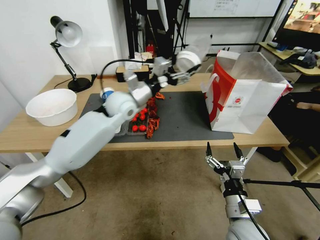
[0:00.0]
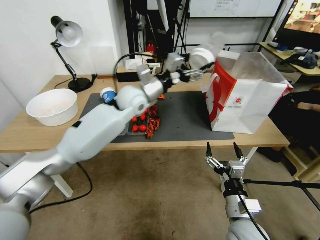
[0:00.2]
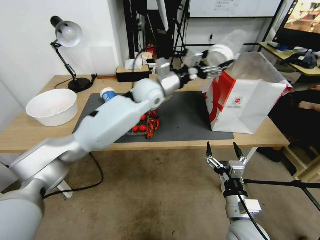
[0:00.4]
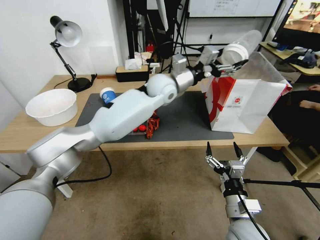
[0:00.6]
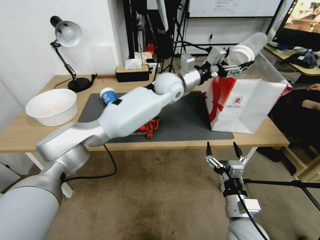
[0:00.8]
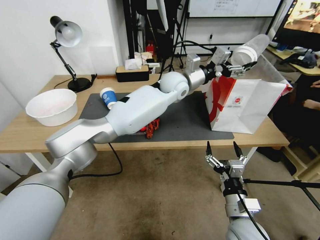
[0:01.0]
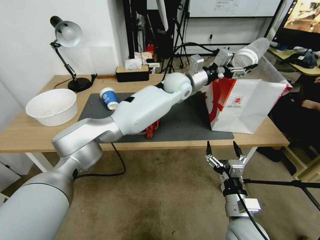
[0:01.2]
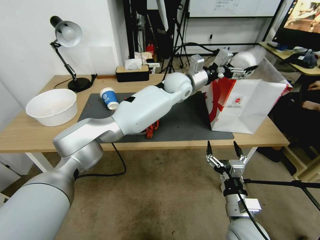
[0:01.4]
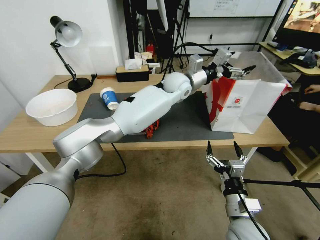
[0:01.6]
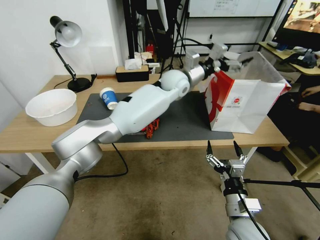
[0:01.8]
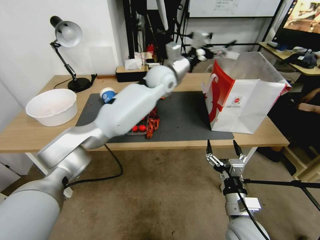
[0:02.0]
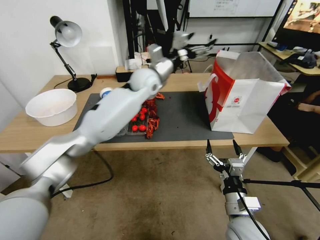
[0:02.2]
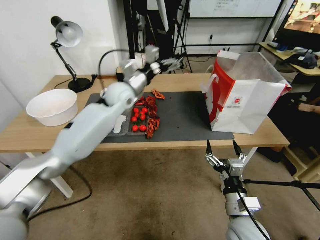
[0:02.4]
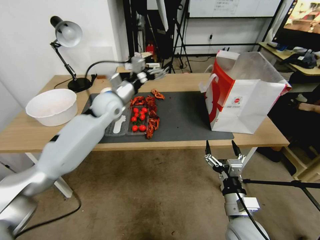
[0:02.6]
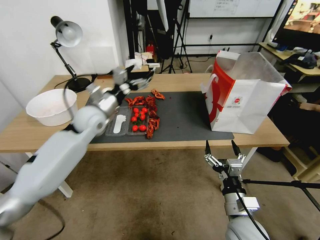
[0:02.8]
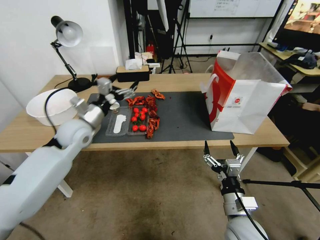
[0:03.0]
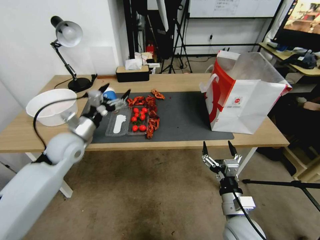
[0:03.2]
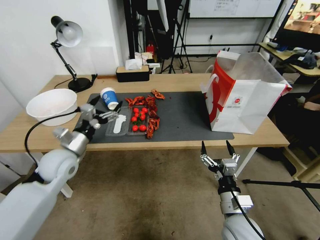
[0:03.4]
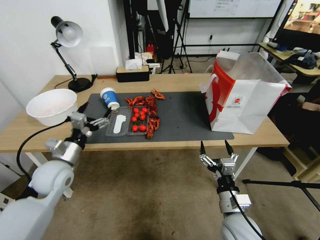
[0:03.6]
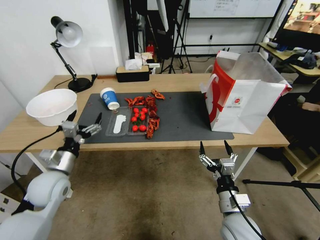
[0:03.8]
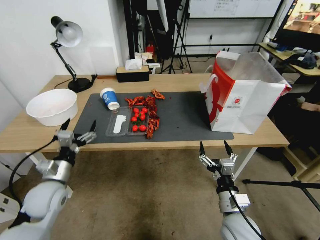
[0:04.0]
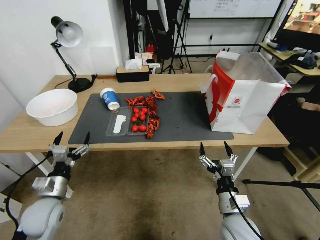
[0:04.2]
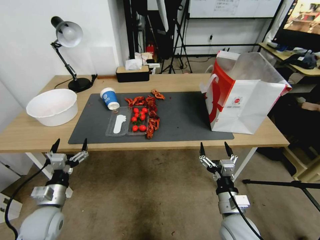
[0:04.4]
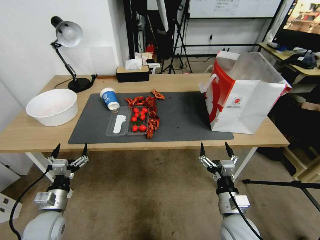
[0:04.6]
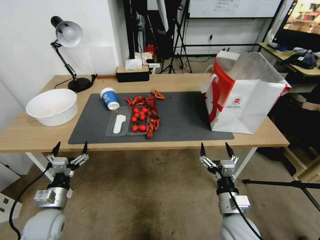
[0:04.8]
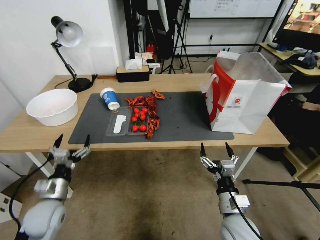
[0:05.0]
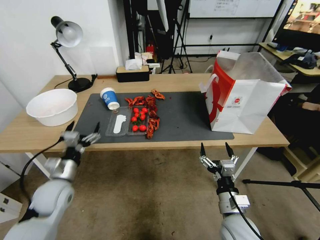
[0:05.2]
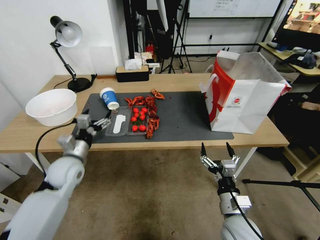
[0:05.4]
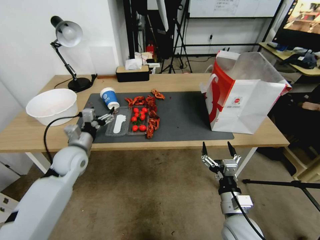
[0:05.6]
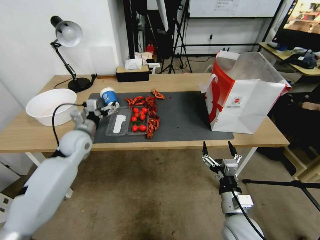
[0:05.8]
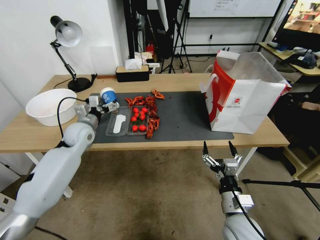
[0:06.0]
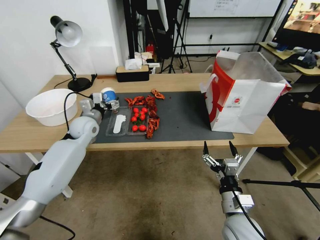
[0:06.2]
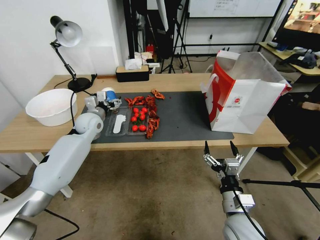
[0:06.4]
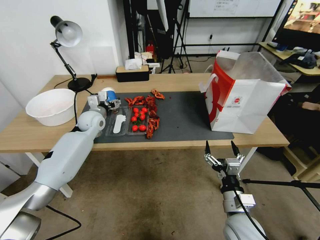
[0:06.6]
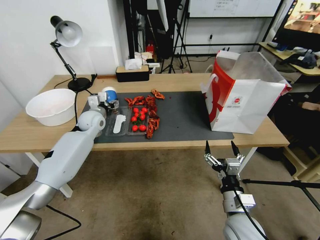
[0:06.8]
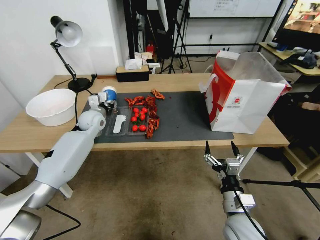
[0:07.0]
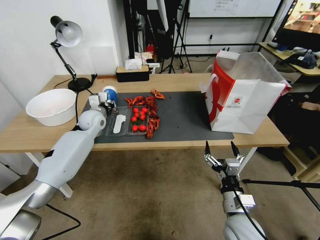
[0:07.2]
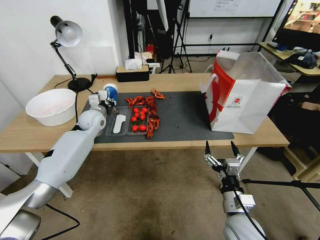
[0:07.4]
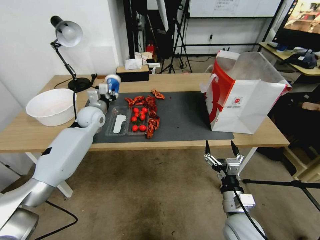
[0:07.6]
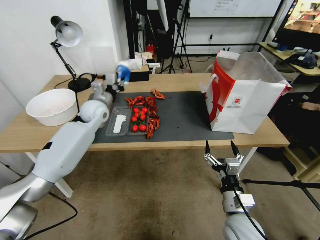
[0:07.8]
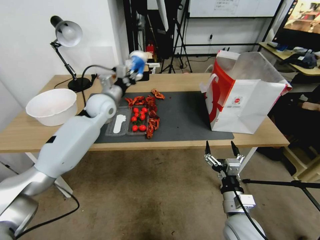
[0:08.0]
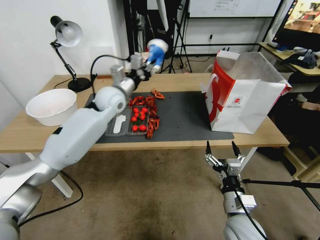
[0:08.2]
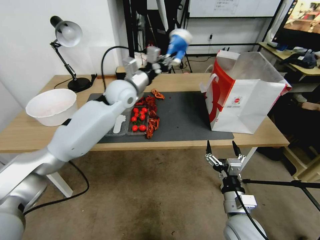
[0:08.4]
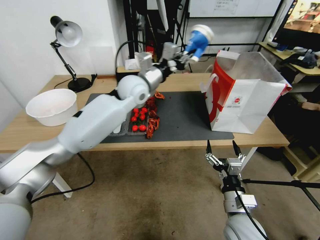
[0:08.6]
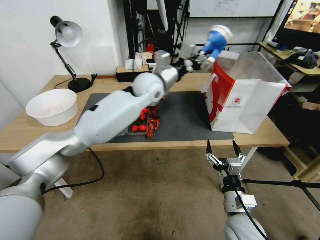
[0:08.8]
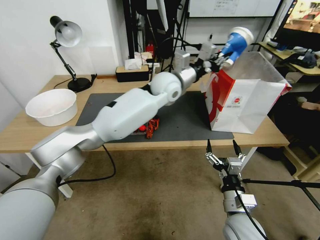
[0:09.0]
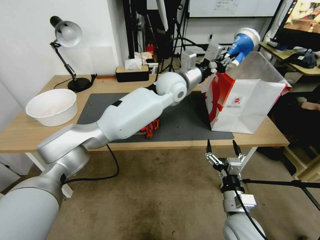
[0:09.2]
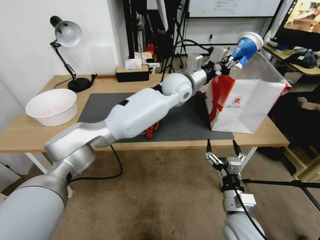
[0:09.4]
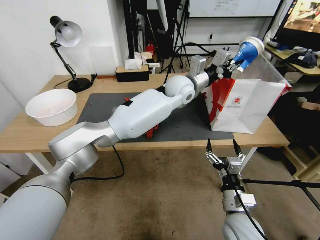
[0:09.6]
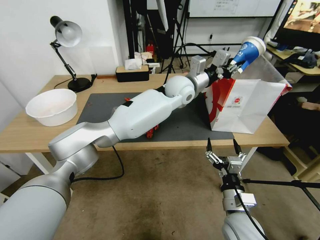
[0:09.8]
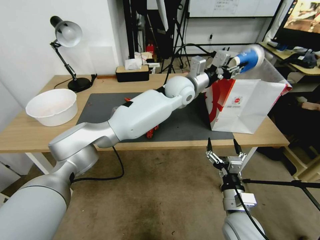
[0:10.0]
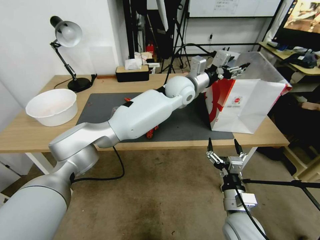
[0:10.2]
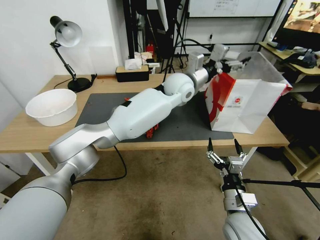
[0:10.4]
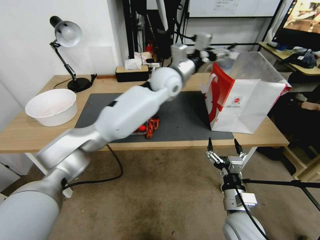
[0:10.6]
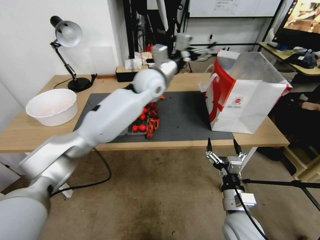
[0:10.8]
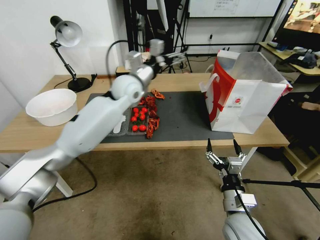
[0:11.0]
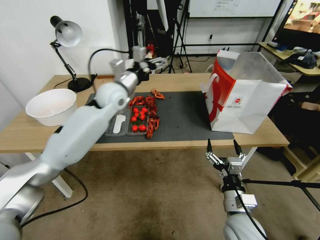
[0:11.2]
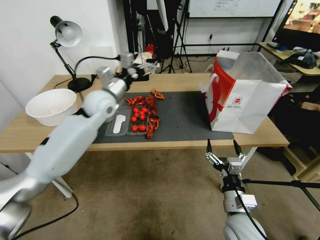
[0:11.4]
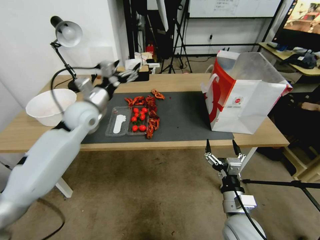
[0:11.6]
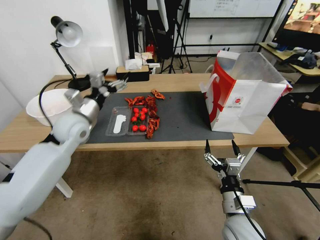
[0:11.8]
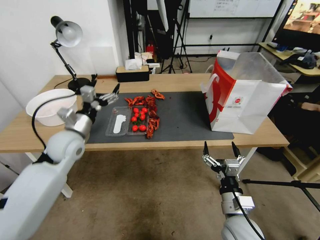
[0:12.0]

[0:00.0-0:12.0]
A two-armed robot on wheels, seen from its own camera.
0:00.0 to 0:01.6: The left gripper moves to the right and forward, roughly 20 cm.
0:01.6 to 0:03.0: The left gripper heads to the left and backward, covering roughly 35 cm.
0:03.0 to 0:04.4: The left gripper moves backward and downward, roughly 25 cm.
0:04.4 to 0:06.0: The left gripper moves forward and upward, about 25 cm.
0:06.0 to 0:07.6: The left gripper moves forward, about 5 cm, and closes.
0:07.6 to 0:09.0: The left gripper travels to the right and upward by approximately 30 cm.
0:09.0 to 0:10.4: The left gripper opens.
0:10.4 to 0:12.0: The left gripper is displaced to the left and backward by some 40 cm.

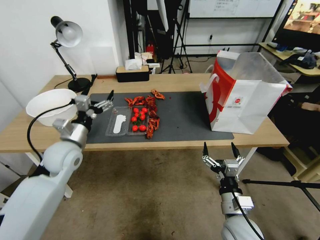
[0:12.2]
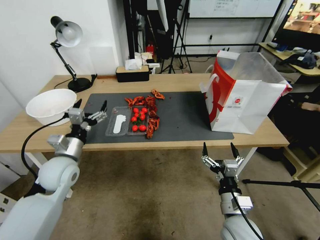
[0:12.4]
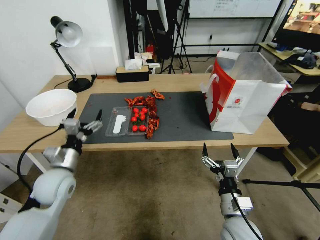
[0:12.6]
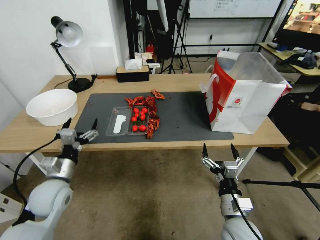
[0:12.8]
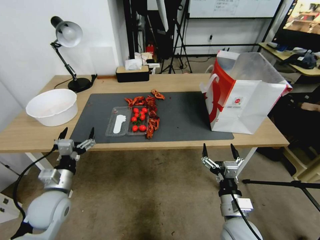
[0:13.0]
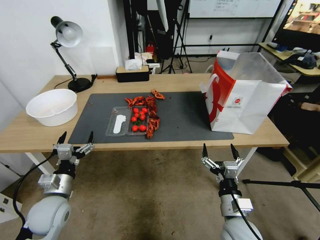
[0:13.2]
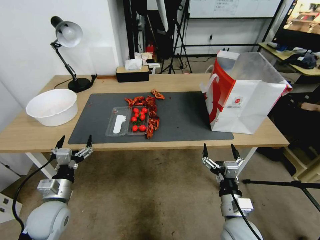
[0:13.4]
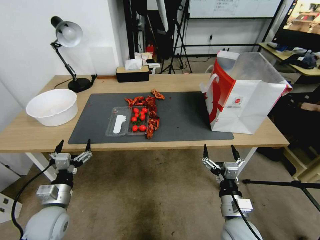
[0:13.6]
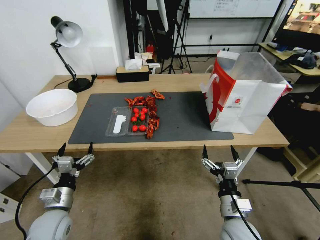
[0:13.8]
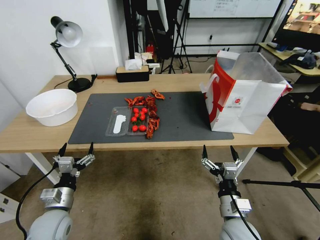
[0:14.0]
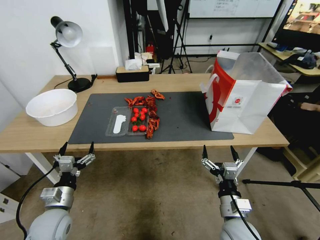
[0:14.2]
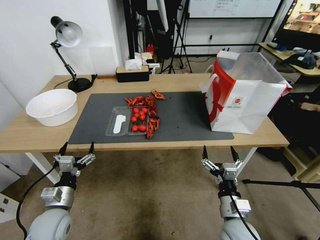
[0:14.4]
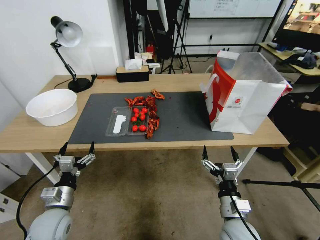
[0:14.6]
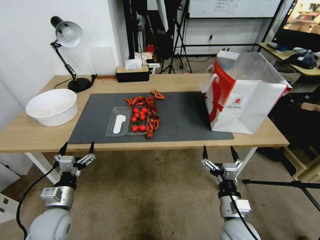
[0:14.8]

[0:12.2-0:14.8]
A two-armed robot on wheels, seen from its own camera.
0:12.2 to 0:13.4: The left gripper heads backward and downward, covering about 15 cm.
0:13.4 to 0:14.8: There are only small adjustments of the grippers.
